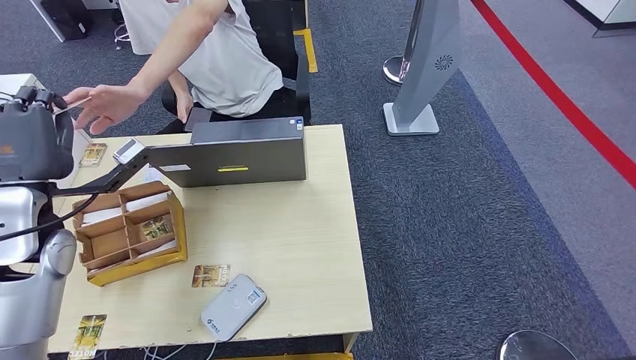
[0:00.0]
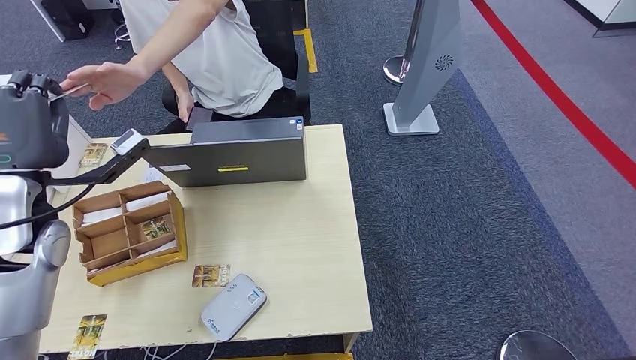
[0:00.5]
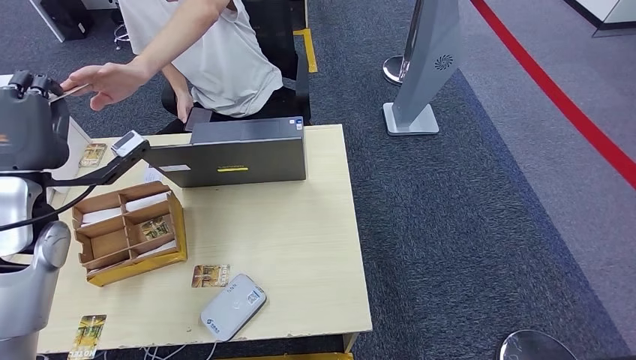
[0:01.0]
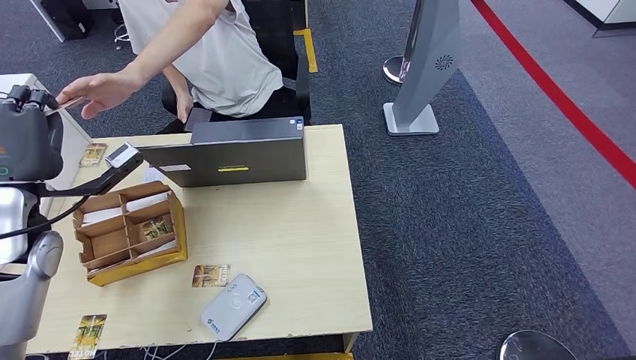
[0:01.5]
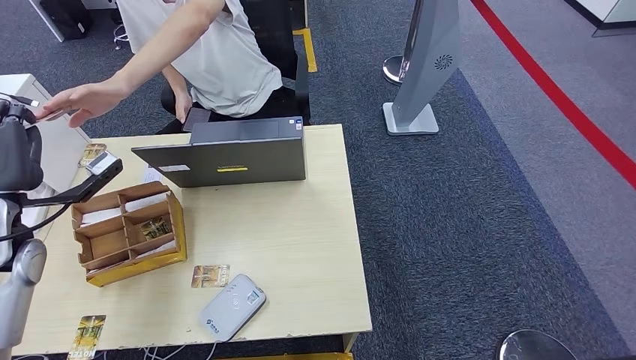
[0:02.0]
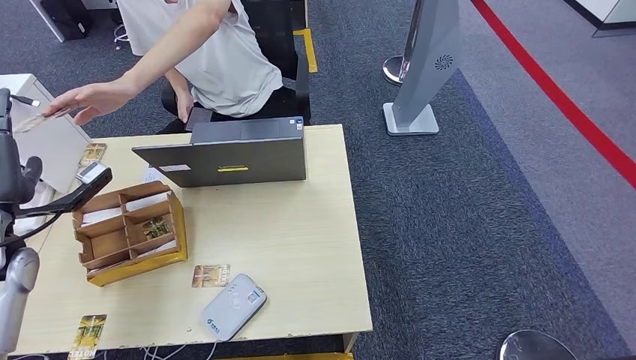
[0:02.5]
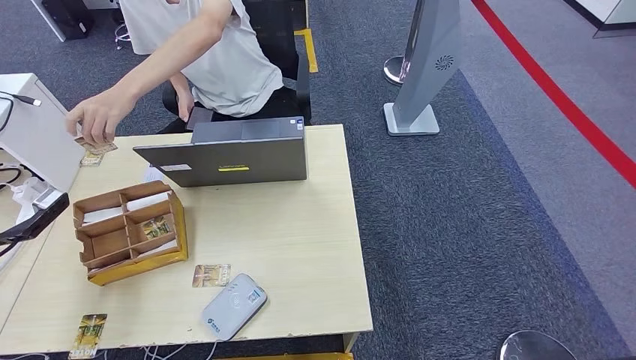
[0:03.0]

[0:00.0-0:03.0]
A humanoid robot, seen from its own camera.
Step, 0:00.0 to 0:03.0: Hand the room key to the person.
0:00.0 to 0:01.5: The hands move only a little.
0:01.5 to 0:03.0: The left hand moves to the left and downward, approximately 15 cm.
